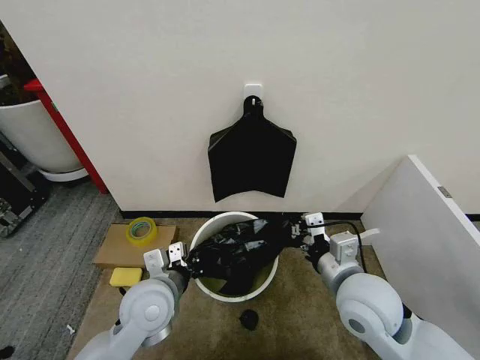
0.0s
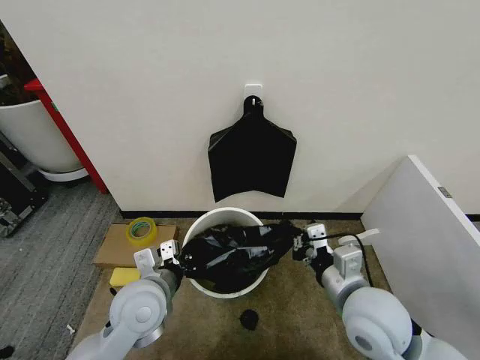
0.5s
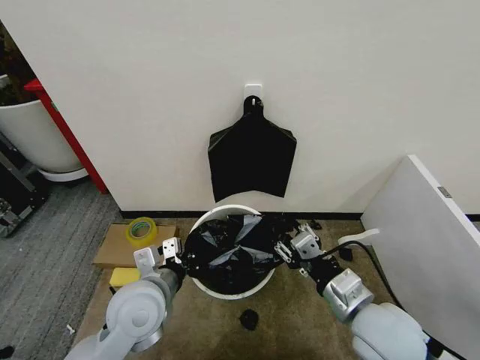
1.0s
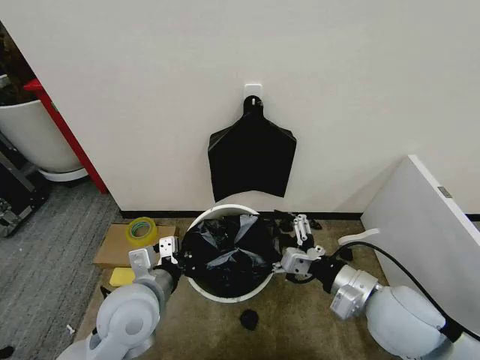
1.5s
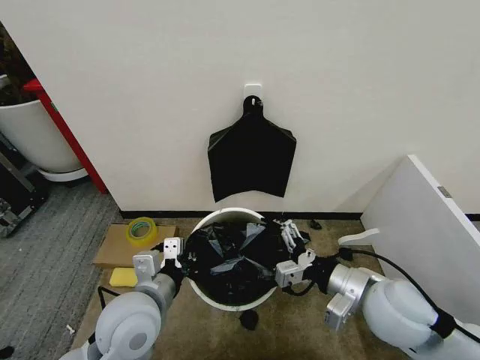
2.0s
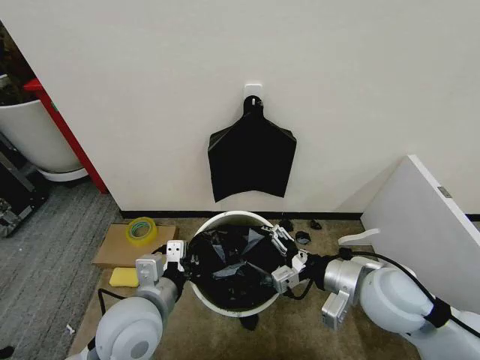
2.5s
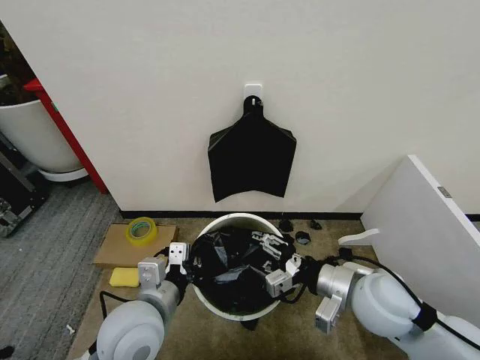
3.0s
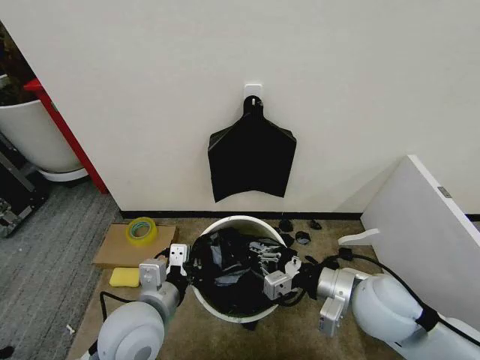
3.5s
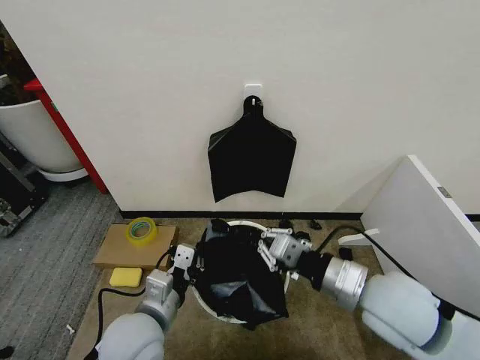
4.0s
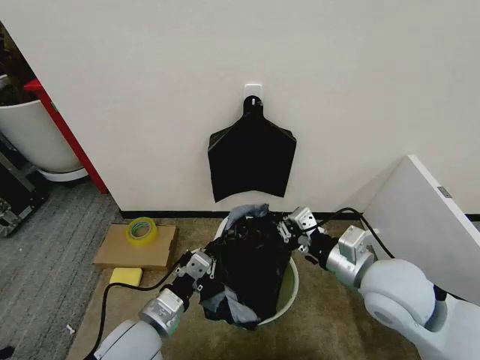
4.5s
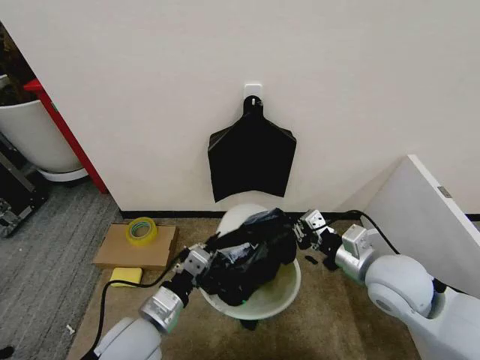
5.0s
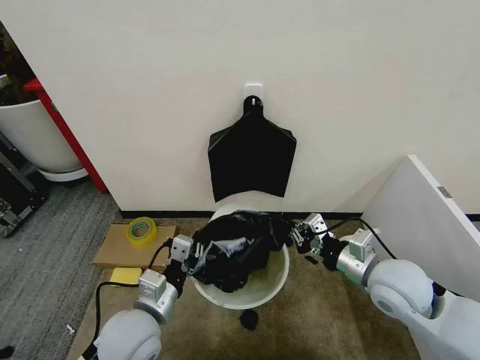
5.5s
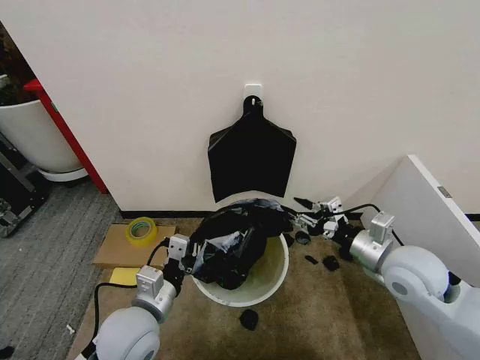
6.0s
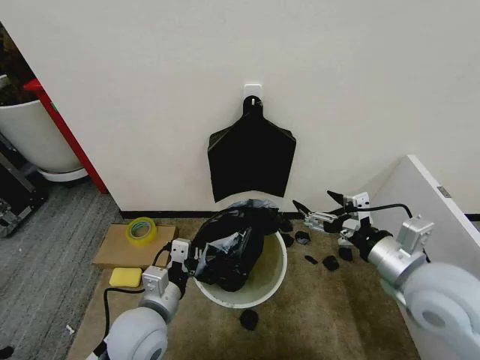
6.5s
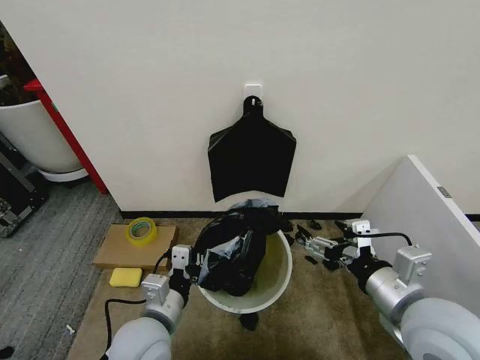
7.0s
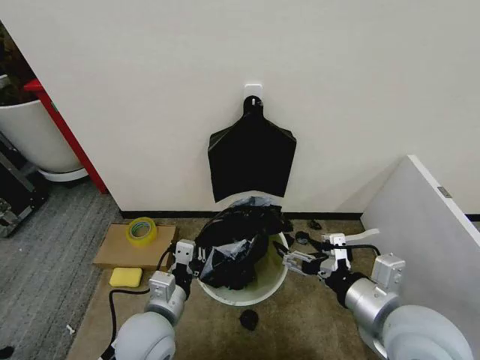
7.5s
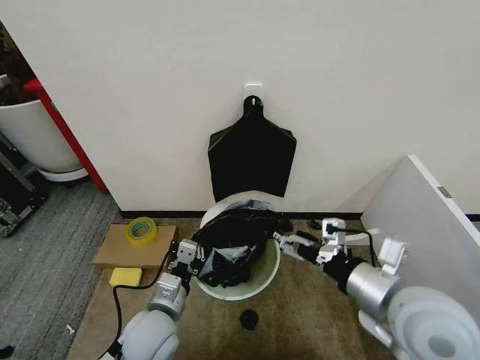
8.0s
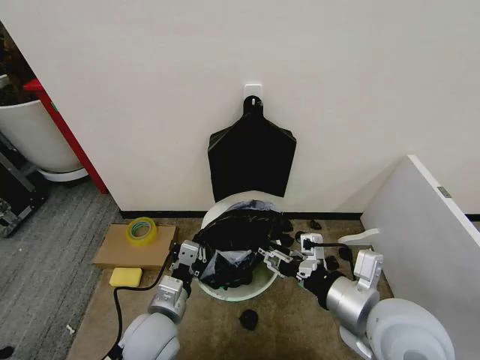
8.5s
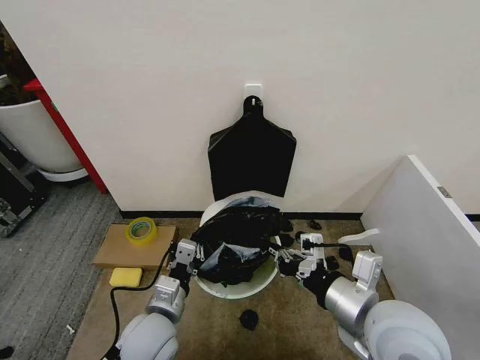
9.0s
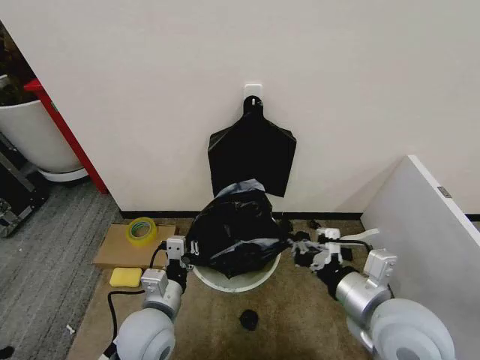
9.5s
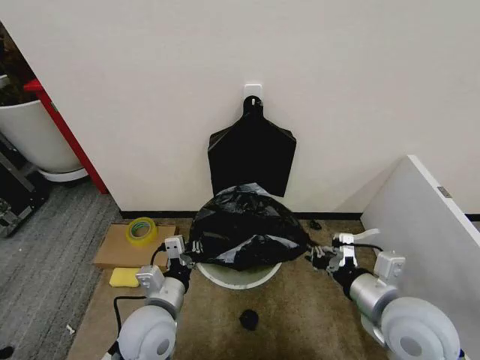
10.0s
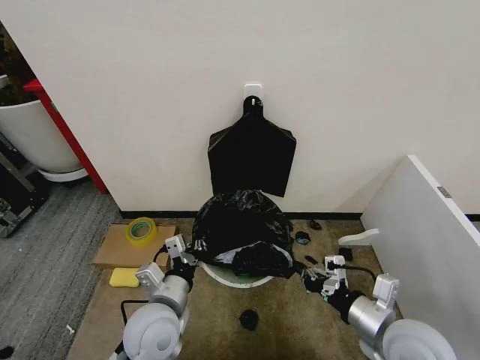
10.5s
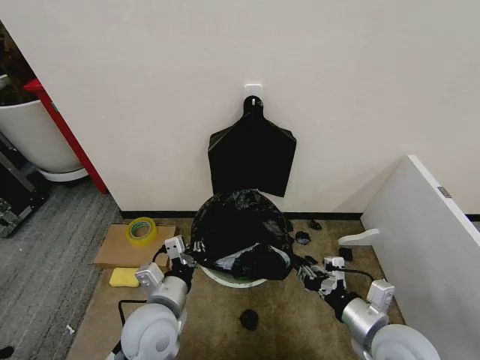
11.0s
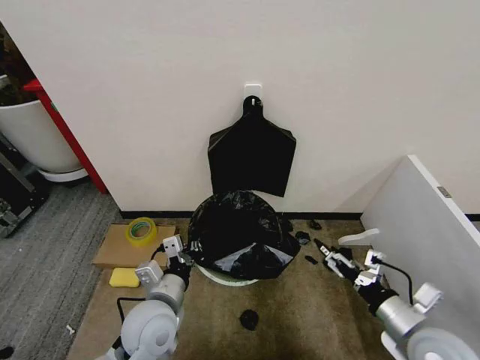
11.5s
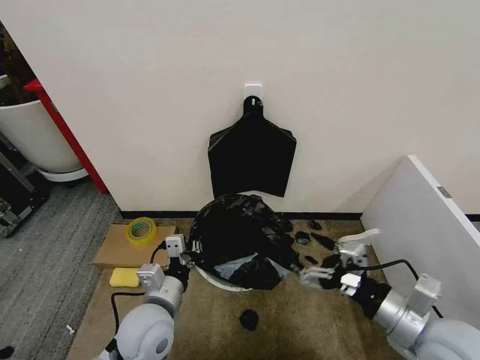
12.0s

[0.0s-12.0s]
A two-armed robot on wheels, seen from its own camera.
Task of the whole recording: Place the garbage bag over the trash bin.
0.0s to 2.0s: The right gripper opens up. The left gripper shifts by some 5 cm.
2.0s to 4.0s: The right gripper closes its fingers.
4.0s to 6.0s: The right gripper goes roughly 10 cm to the right and forward, and opens.
6.0s to 8.0s: The left gripper moves about 5 cm; the right gripper is displaced backward and to the left by approximately 10 cm, and opens.
8.0s to 10.0s: The right gripper travels downward by approximately 5 cm, and closes up.
10.0s to 12.0s: The right gripper opens.

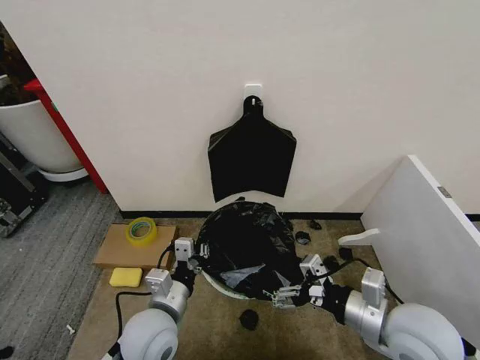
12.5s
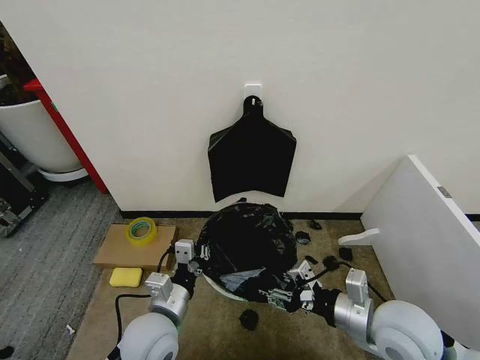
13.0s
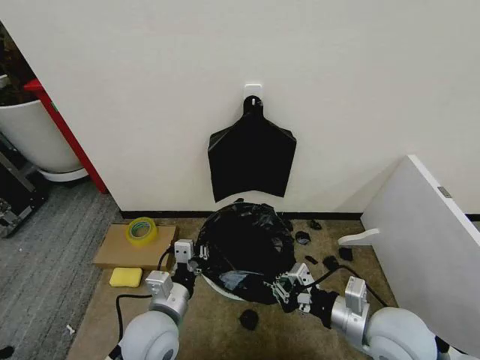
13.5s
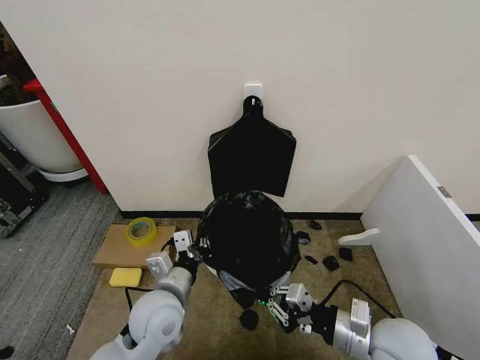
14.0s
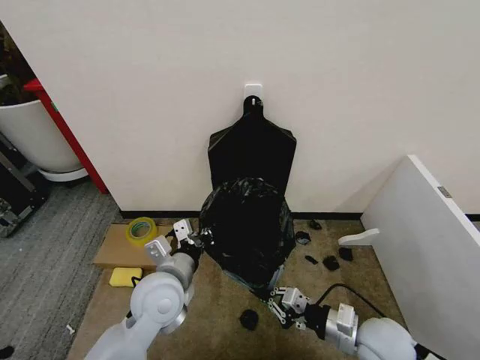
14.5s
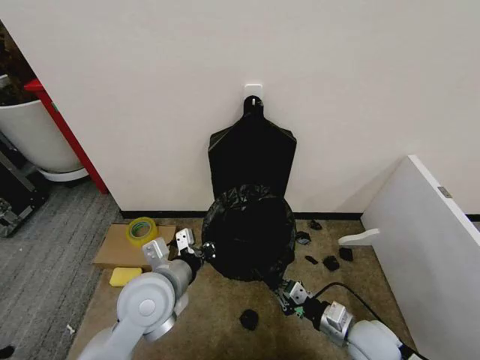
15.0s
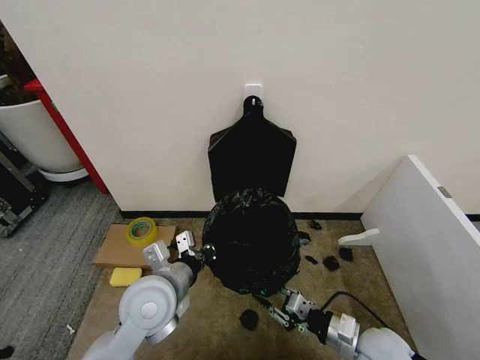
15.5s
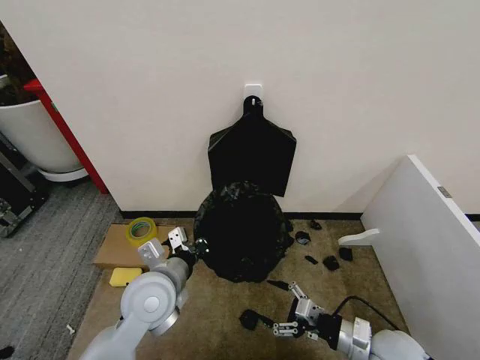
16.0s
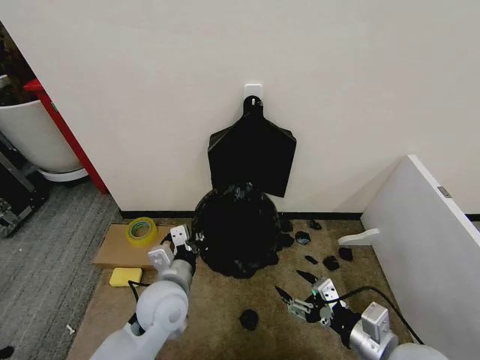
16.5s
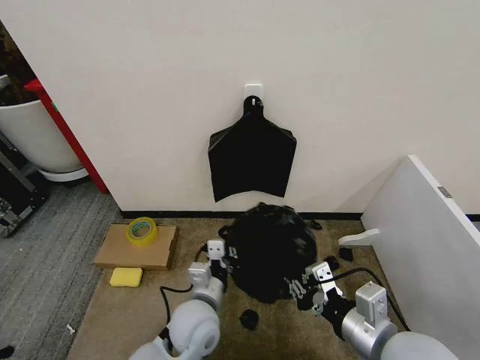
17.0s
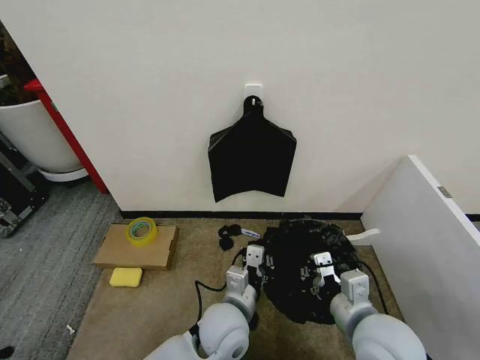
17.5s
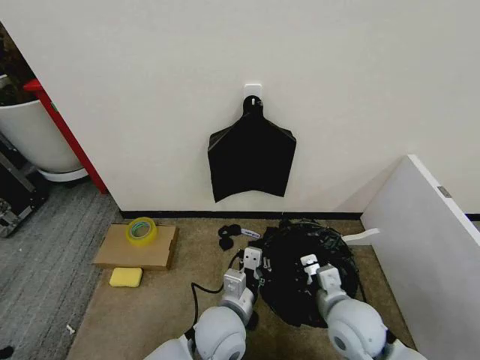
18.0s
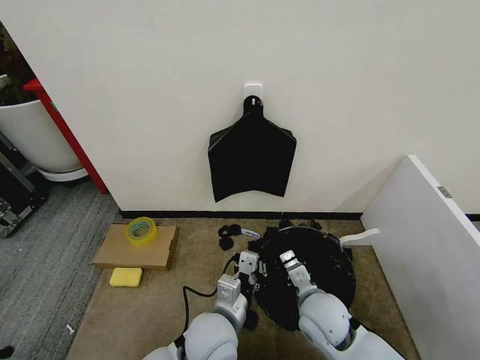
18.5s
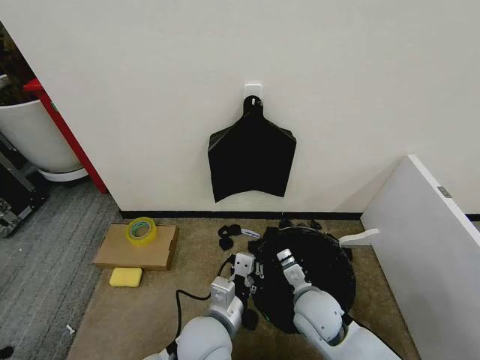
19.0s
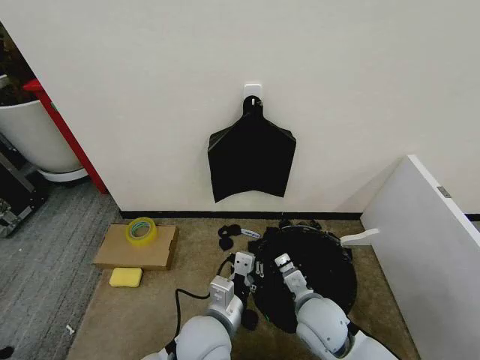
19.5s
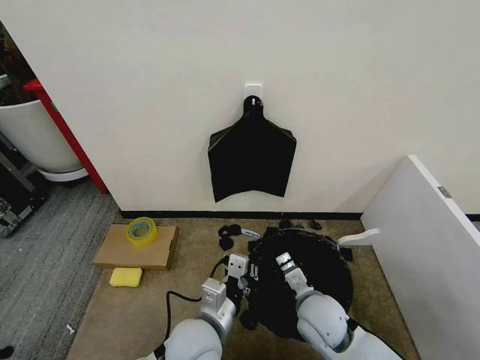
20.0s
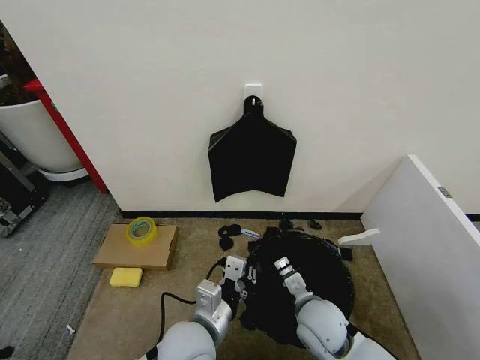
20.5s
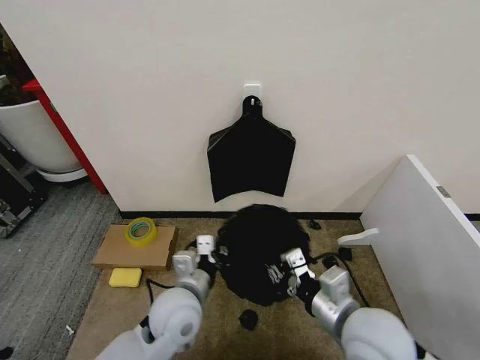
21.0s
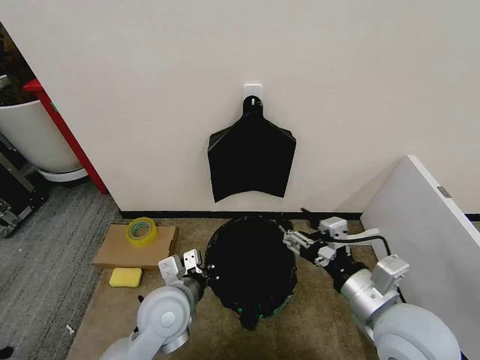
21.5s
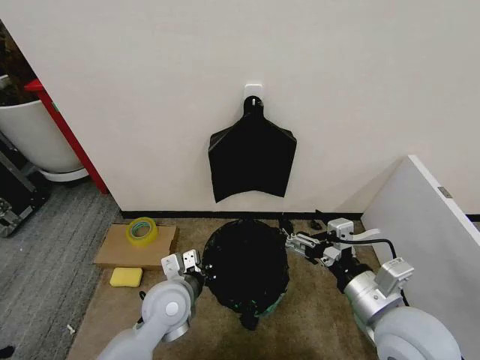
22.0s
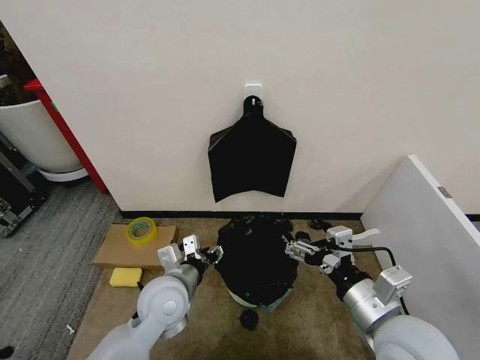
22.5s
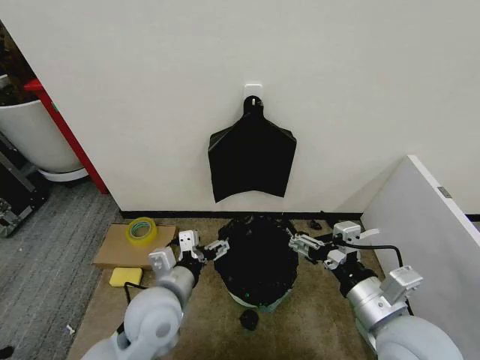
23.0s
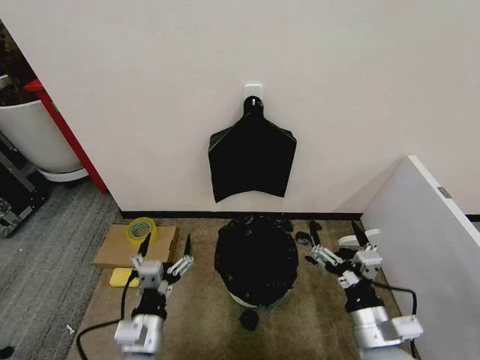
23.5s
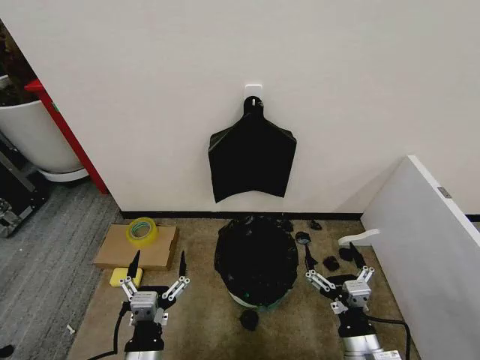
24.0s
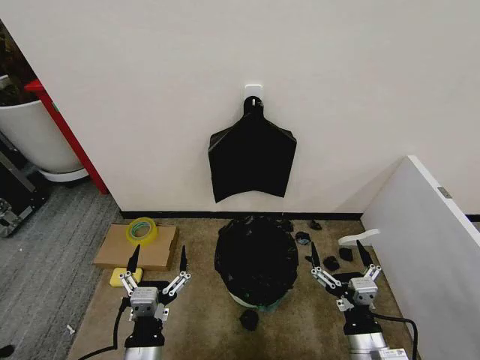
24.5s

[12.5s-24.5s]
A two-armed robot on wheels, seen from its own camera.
Task of the whole recording: Place the garbage bag over the trash bin.
12.5s to 14.5s: The right gripper goes roughly 10 cm downward, and closes its fingers. The left gripper shifts about 5 cm forward.
14.5s to 16.5s: The right gripper travels backward by some 5 cm, and opens its fingers.
16.5s to 18.5s: The right gripper shifts about 15 cm to the left, forward and downward, and closes up; the left gripper goes approximately 10 cm to the right and backward.
18.5s to 20.5s: The left gripper moves some 5 cm.
20.5s to 22.5s: The right gripper moves upward, to the right and backward, roughly 20 cm, and opens up, while the left gripper travels forward and to the left by roughly 10 cm, and opens its fingers.
22.5s to 24.5s: The right gripper moves downward, approximately 15 cm. Meanwhile the left gripper moves backward, about 15 cm, and opens.

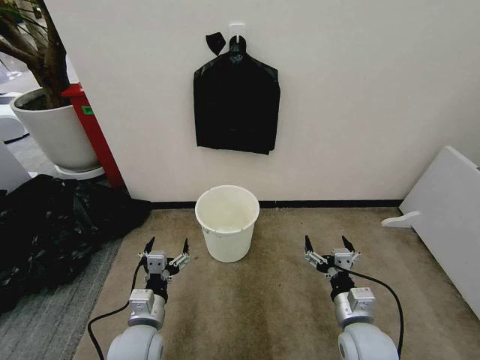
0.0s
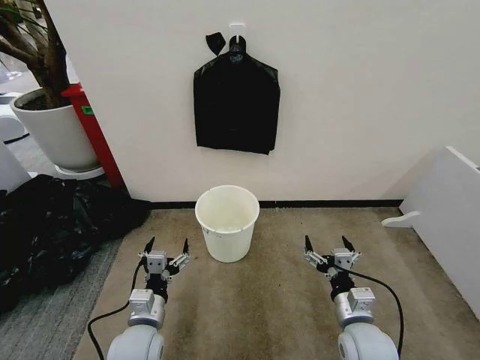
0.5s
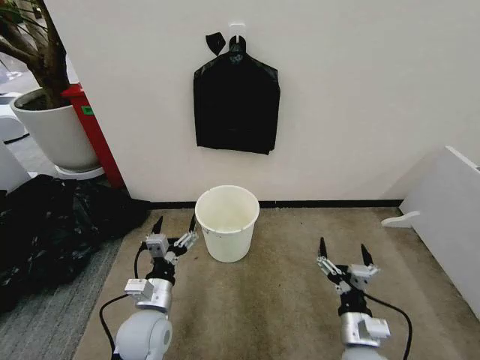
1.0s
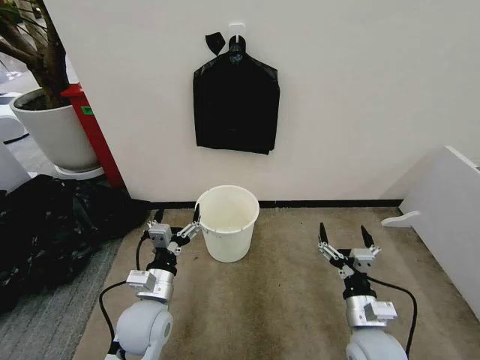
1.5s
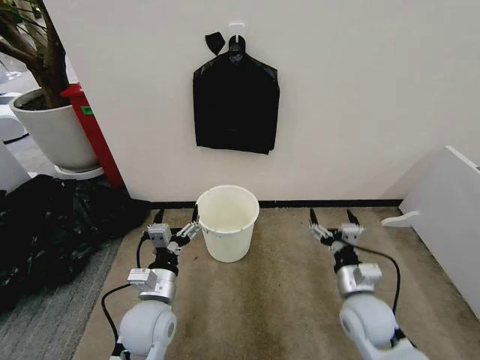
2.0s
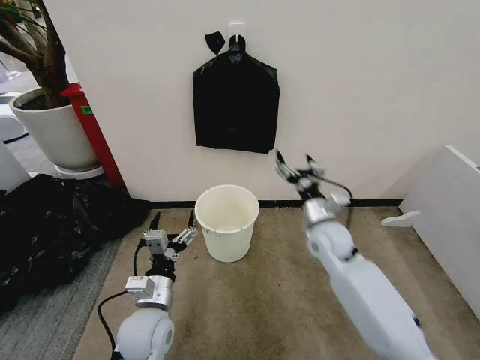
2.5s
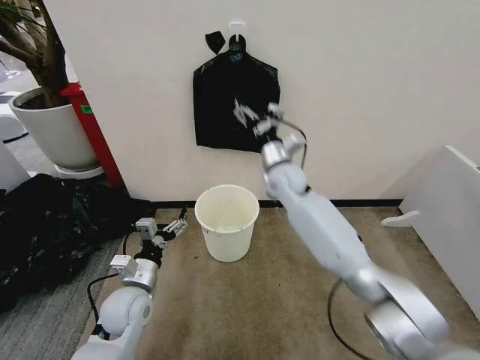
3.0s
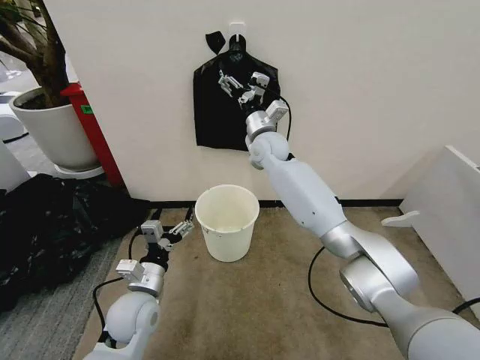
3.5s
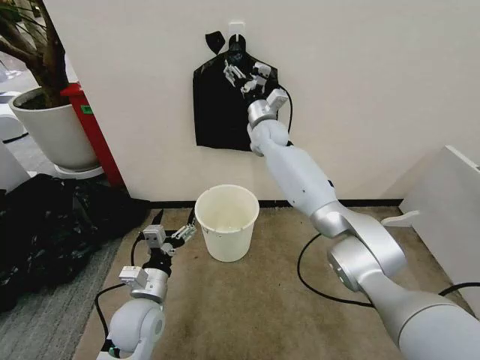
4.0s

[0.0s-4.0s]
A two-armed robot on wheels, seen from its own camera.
Task of the whole recording: Place the garbage bag over the trash bin.
2.0s to 4.0s: The right gripper goes some 50 cm forward, upward and to the left.
